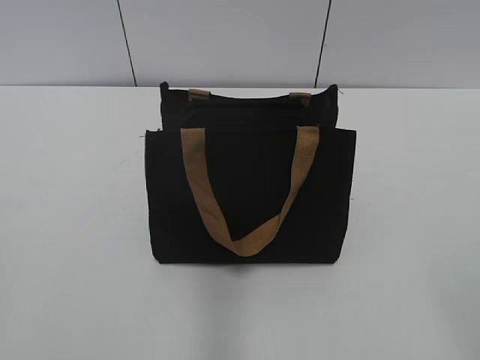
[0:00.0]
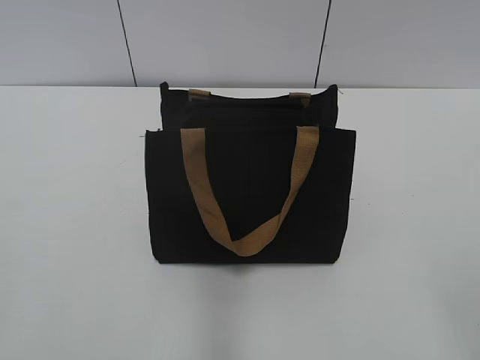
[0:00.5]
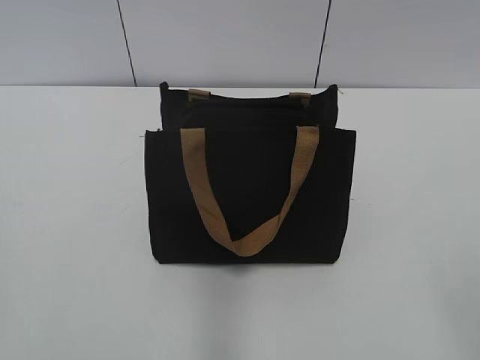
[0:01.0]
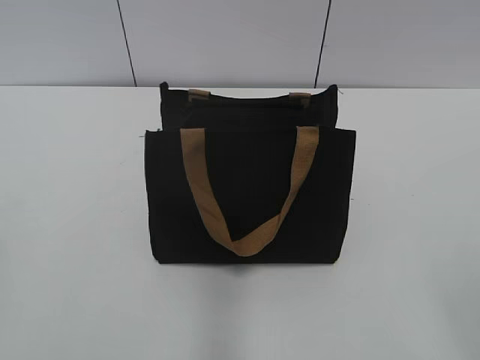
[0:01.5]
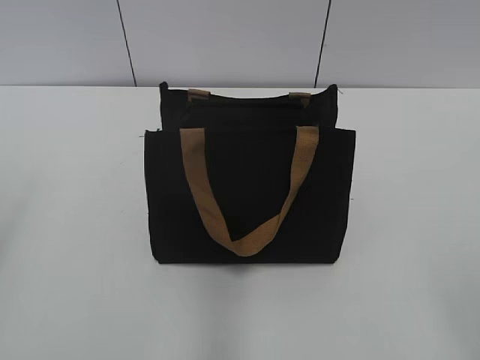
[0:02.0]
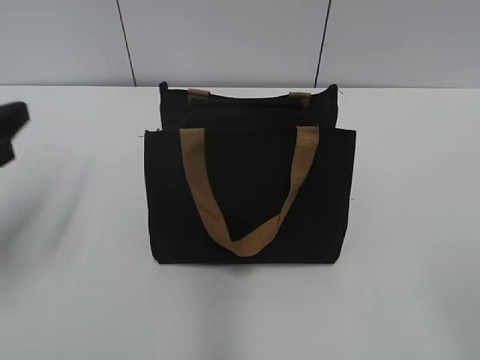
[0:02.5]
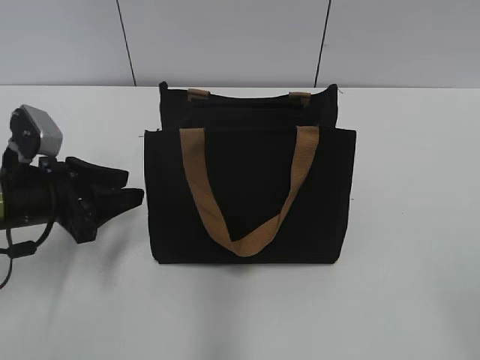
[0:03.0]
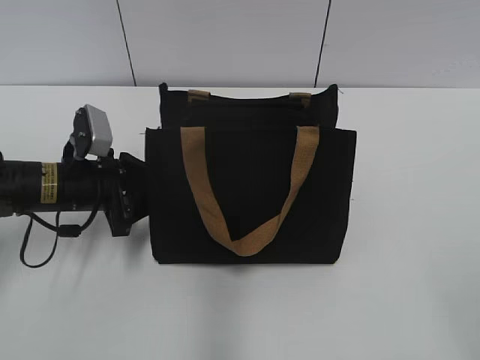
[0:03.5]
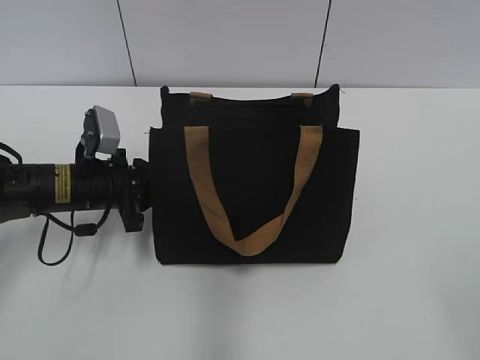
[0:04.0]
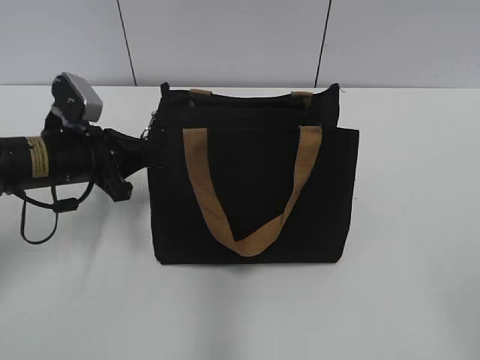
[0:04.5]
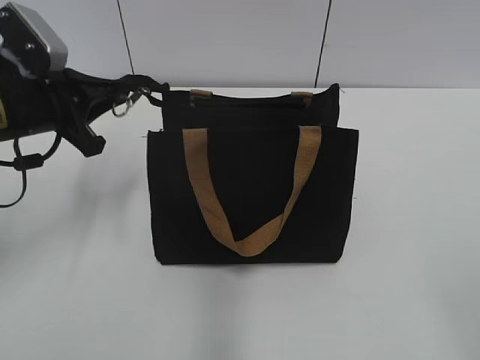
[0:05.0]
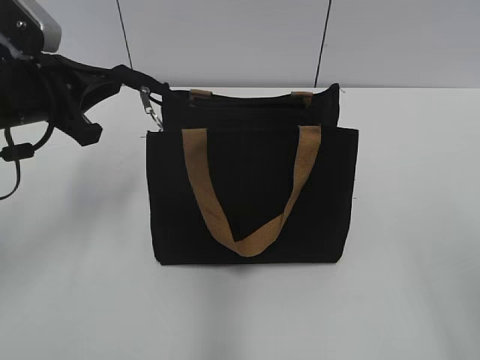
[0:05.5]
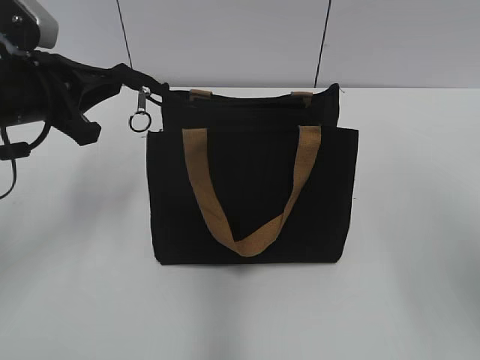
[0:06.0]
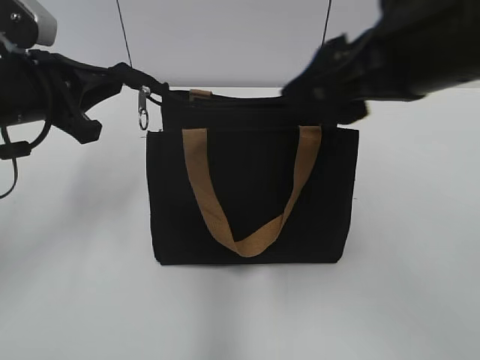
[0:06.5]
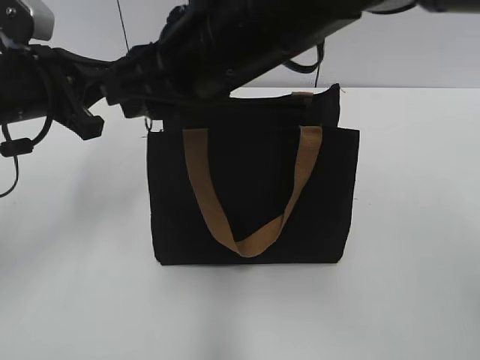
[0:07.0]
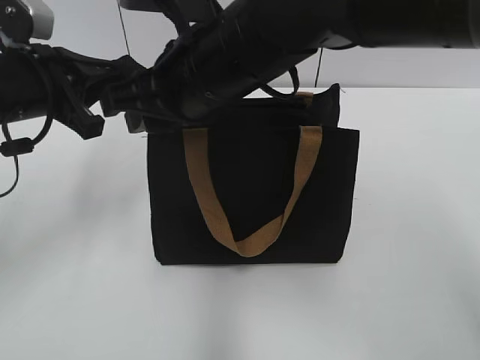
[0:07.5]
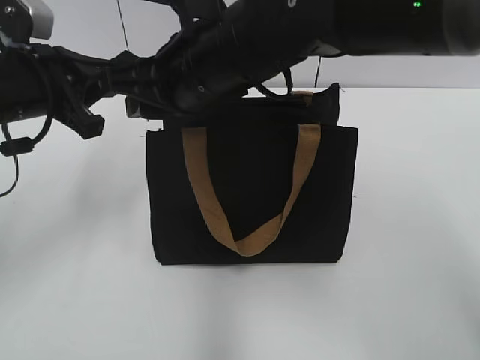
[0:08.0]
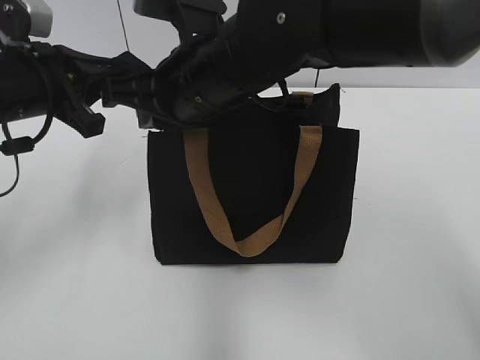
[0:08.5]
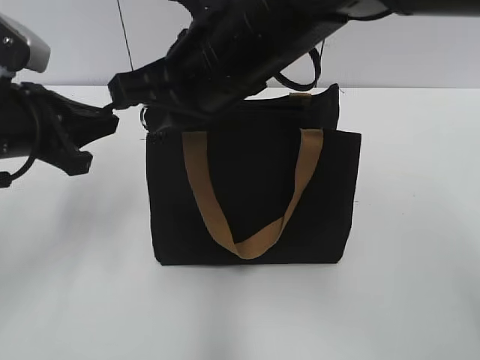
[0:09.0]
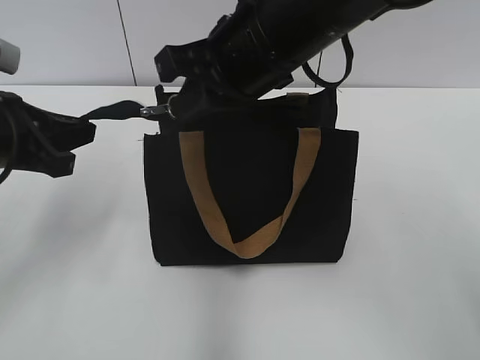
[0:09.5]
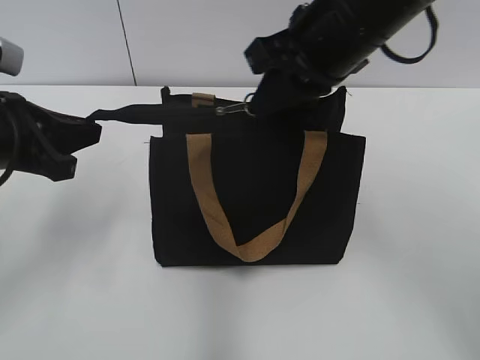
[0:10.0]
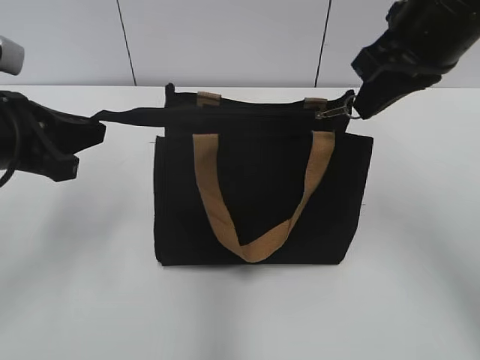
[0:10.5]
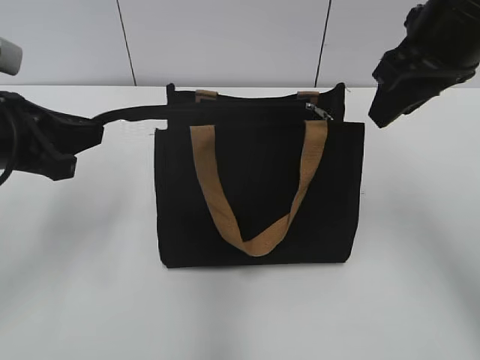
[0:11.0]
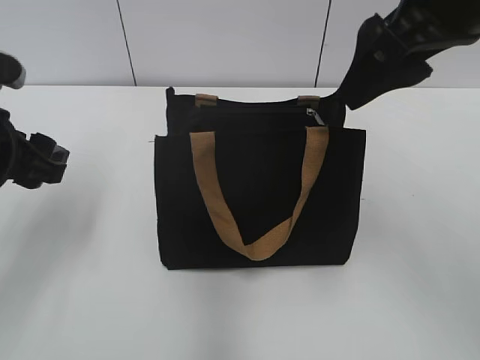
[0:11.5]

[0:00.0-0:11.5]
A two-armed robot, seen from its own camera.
Step, 0:00.0 to 0:10.5: Zip up the bag with your right hand.
0:02.0 to 0:04.0: The left gripper shifts approximately 30 cm forward, downward and to the right, and closes.
0:04.0 to 0:06.0: The left gripper travels upward by about 15 cm. The right gripper goes roughly 15 cm forward and upward.
0:06.0 to 0:07.5: The right gripper moves to the left and forward, some 30 cm, and closes.
0:07.5 to 0:09.5: The left gripper ends up about 5 cm from where it was; the right gripper shifts by about 5 cm, and closes its fingers.
0:09.5 to 0:11.5: The right gripper goes some 15 cm to the right and upward, and opens up. The left gripper opens up.

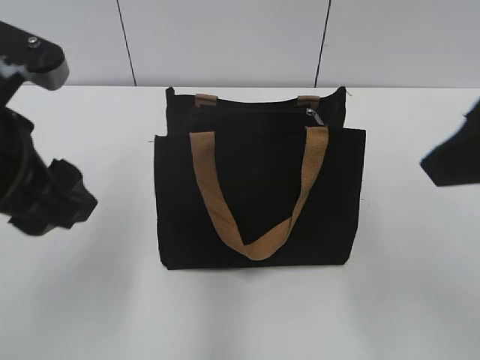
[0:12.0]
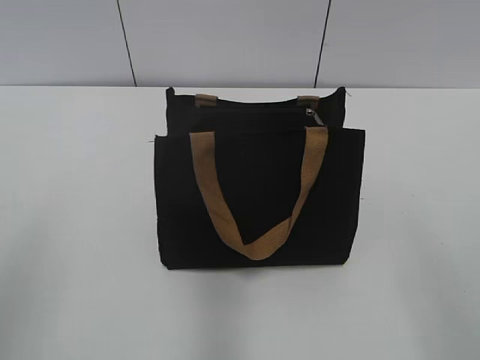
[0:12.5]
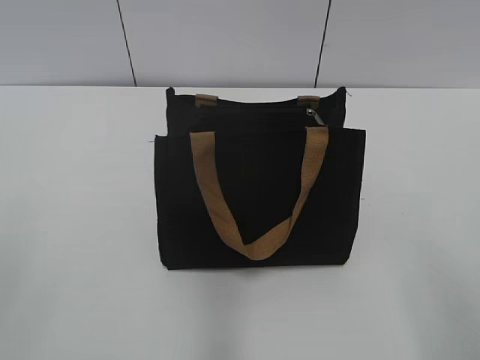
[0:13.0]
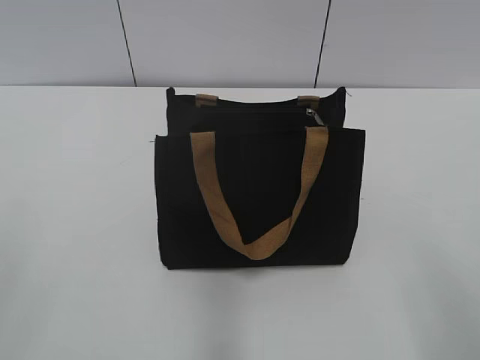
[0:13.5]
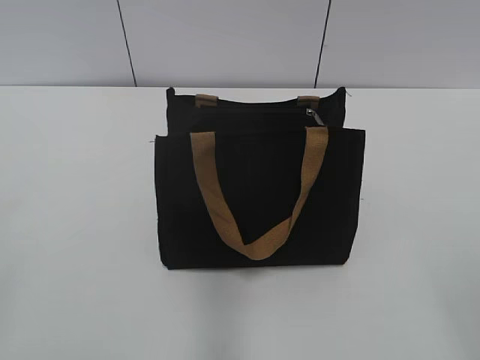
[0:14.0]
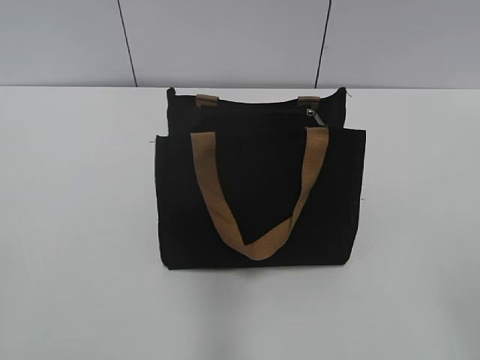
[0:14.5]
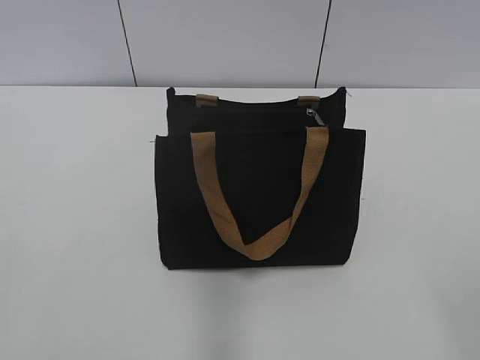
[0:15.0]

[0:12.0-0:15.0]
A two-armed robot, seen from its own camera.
0:12.0 to 0:13.5: The left gripper travels backward and to the left by roughly 20 cm, while the right gripper goes about 15 cm backward, downward and to the right.

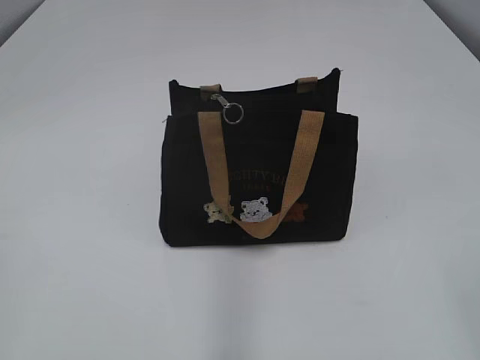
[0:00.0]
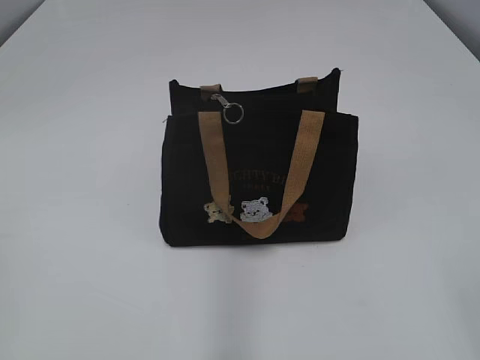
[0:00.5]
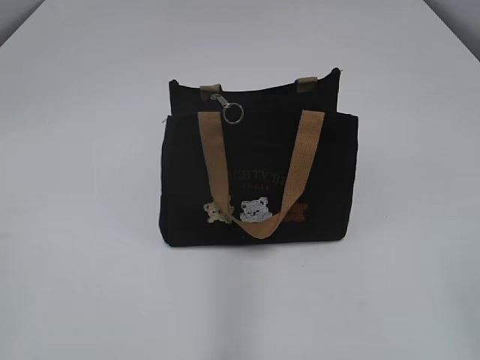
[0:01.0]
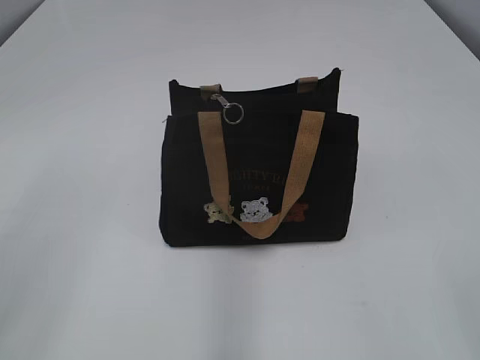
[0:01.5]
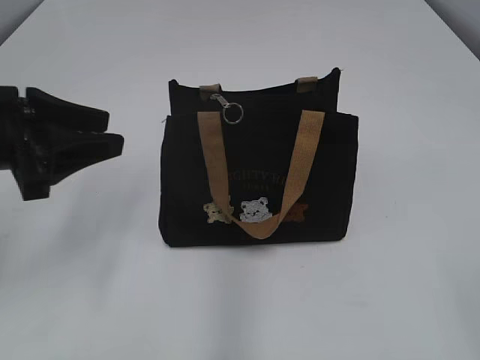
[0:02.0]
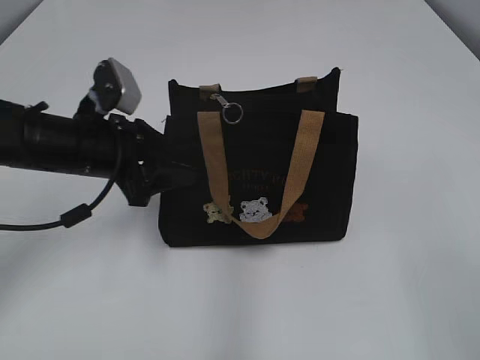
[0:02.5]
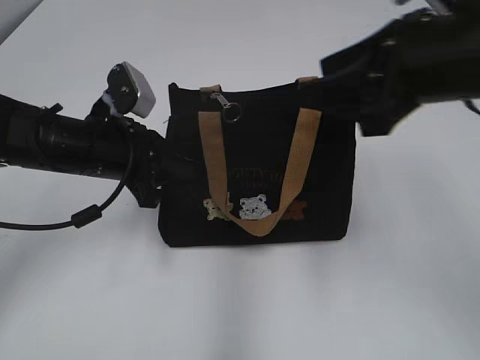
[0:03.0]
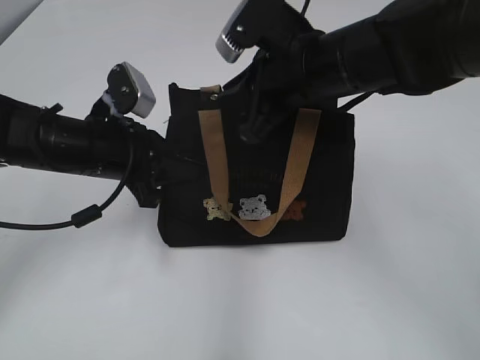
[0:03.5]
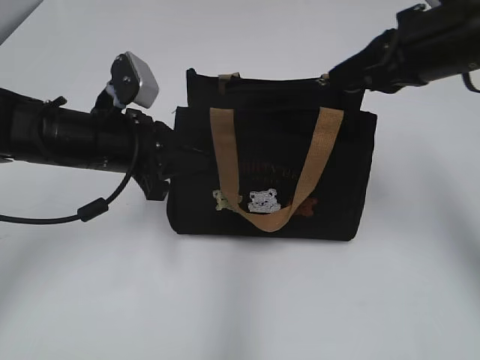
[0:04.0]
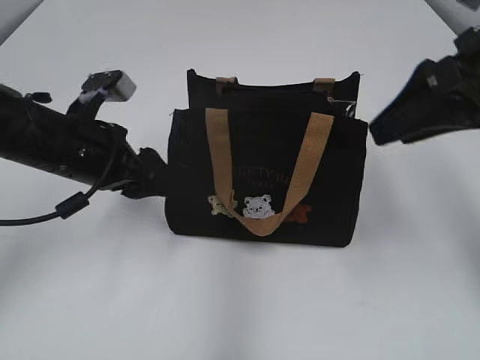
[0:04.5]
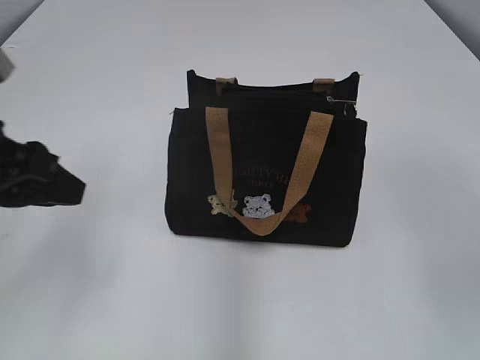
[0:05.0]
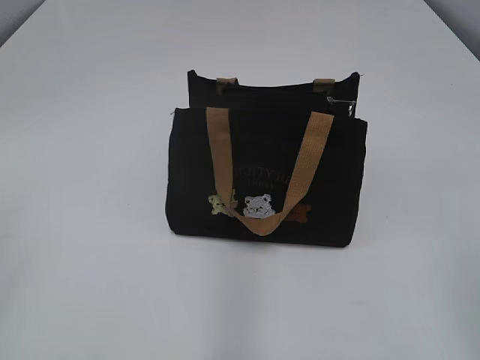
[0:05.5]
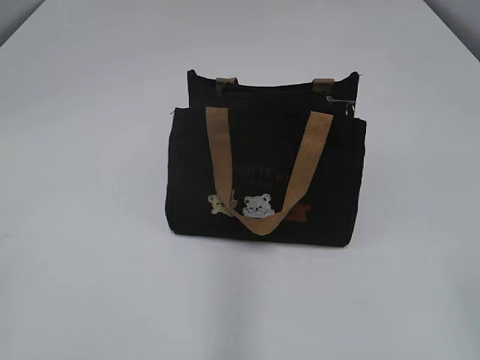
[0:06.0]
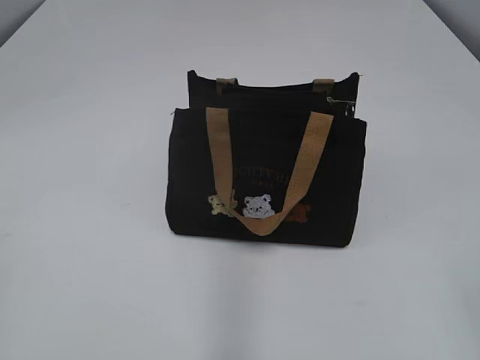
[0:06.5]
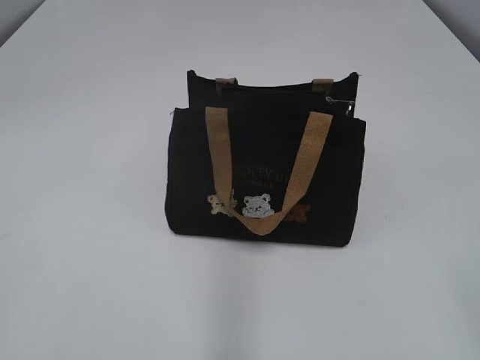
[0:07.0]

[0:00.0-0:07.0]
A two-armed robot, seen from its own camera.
Step, 0:00.0 to 0:04.0: Pull open the zipper with your right hand.
0:02.0 to 0:03.5: The right gripper heads forward and to the left, covering about 40 cm, and closes; the left gripper shifts roughly 10 cm to the right, downward and forward, and closes up.
0:03.5 to 0:05.0: The right gripper is displaced to the right, backward and upward by approximately 25 cm, and opens its fingers, while the left gripper heads backward, upward and to the left, covering roughly 15 cm, and opens its fingers.
0:05.0 to 0:07.0: The left gripper shifts some 25 cm backward and to the left.

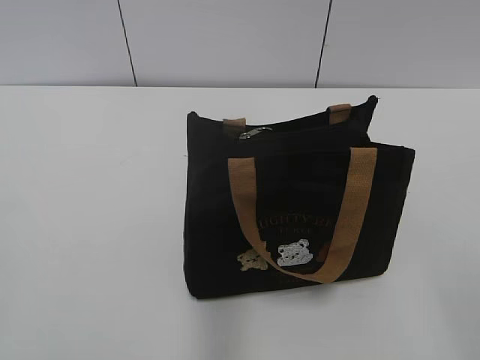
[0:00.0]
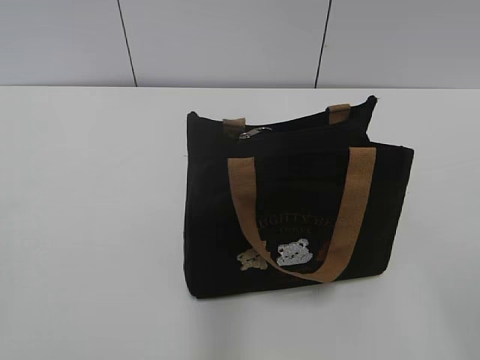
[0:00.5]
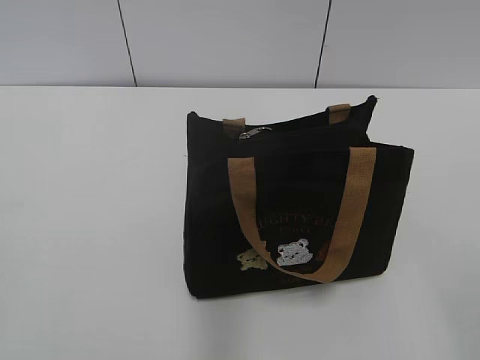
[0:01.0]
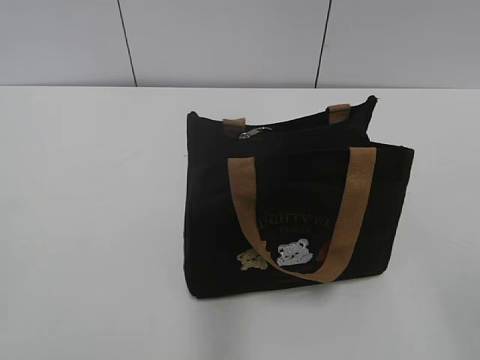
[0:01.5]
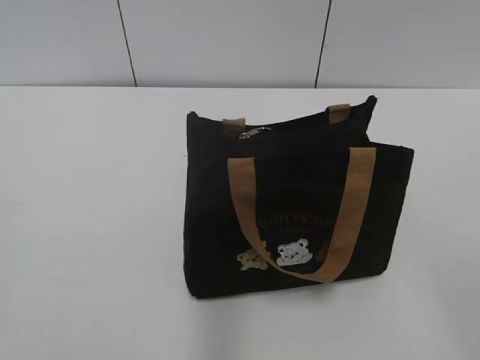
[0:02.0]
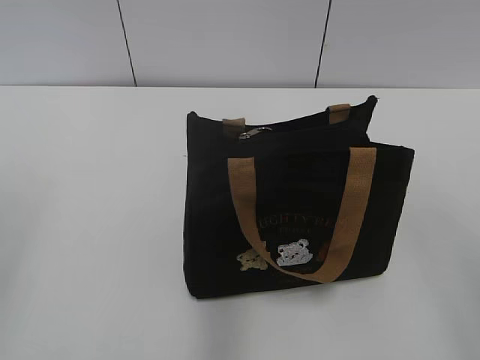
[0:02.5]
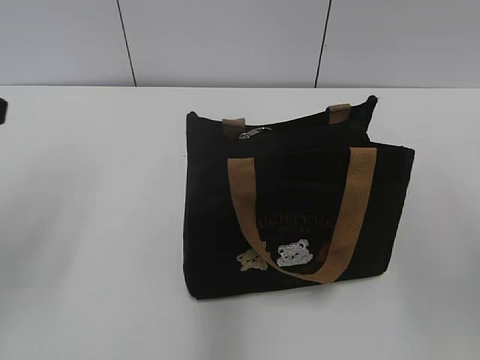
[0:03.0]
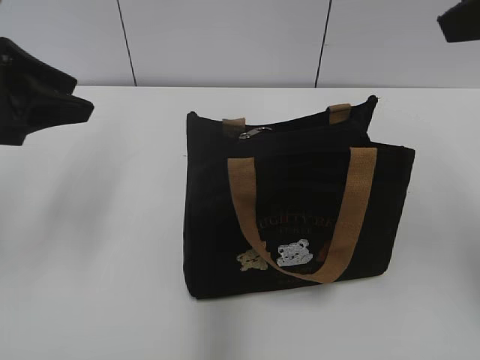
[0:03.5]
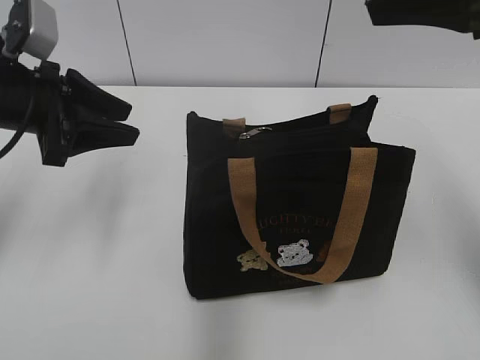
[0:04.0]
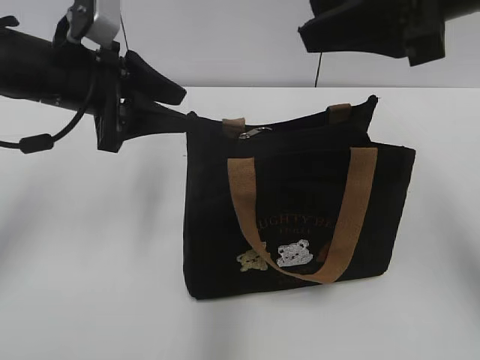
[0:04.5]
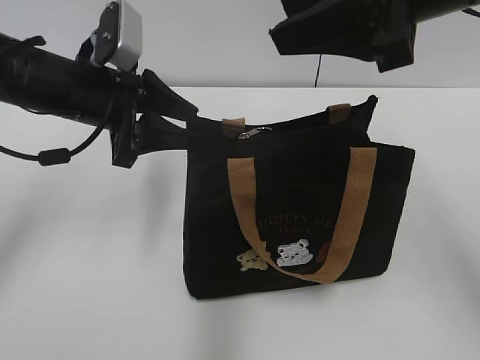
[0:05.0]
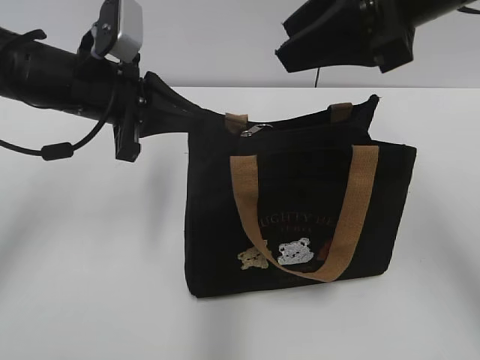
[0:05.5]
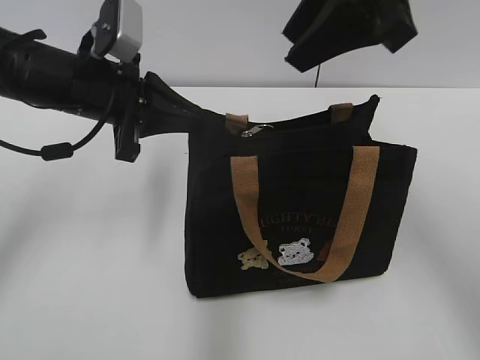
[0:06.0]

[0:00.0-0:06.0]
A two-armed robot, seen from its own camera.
0:02.0 to 0:04.0: Both grippers move forward, some 30 cm.
0:04.0 to 0:06.0: The left gripper moves to the right, approximately 5 cm, and closes. The right gripper shifts roughly 10 cm to the left.
